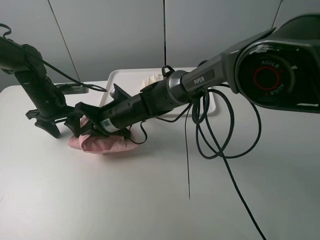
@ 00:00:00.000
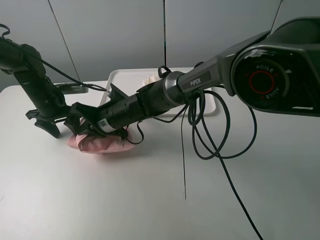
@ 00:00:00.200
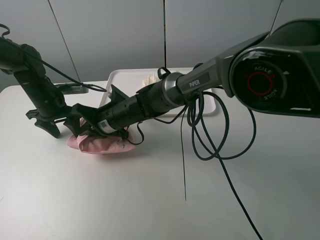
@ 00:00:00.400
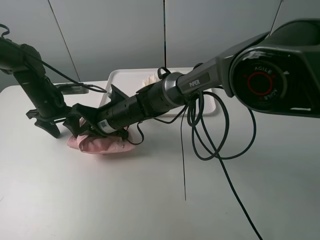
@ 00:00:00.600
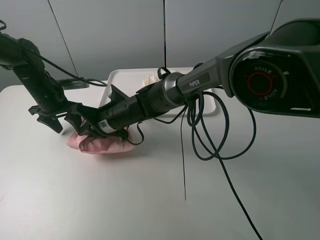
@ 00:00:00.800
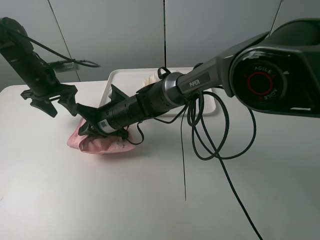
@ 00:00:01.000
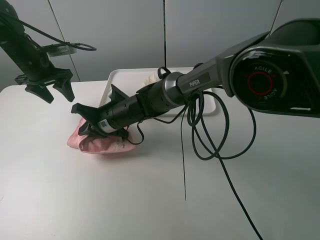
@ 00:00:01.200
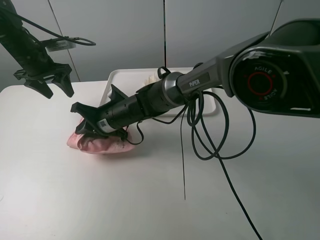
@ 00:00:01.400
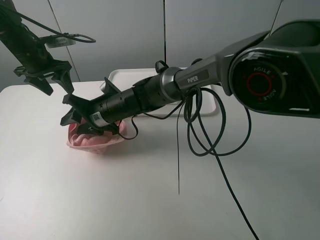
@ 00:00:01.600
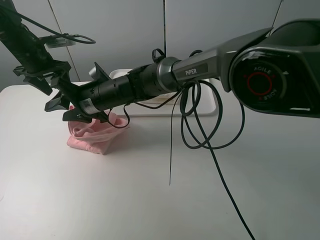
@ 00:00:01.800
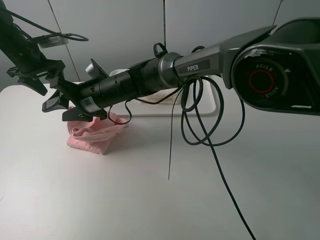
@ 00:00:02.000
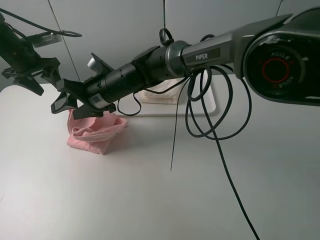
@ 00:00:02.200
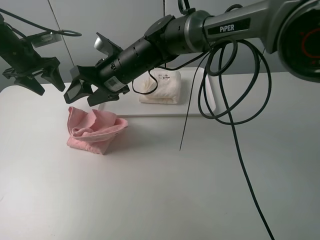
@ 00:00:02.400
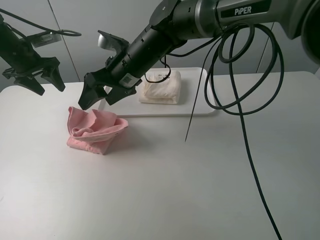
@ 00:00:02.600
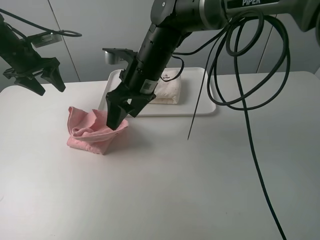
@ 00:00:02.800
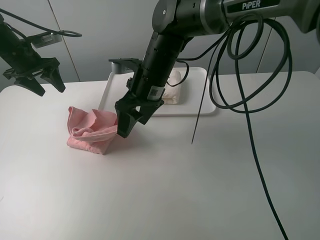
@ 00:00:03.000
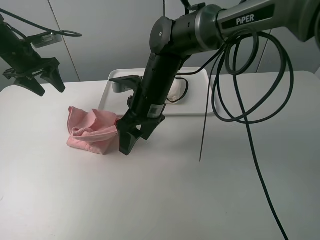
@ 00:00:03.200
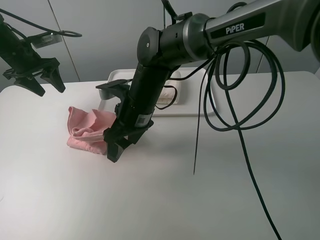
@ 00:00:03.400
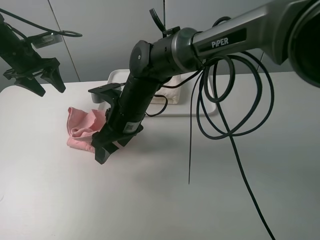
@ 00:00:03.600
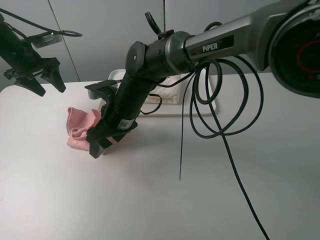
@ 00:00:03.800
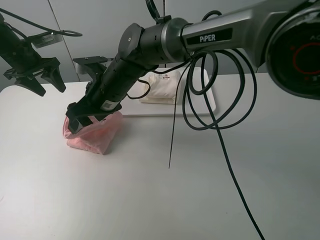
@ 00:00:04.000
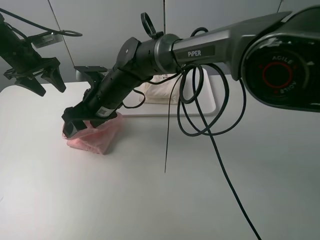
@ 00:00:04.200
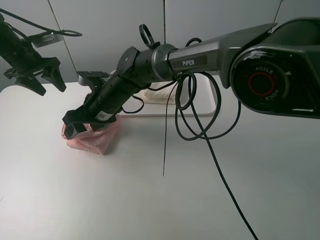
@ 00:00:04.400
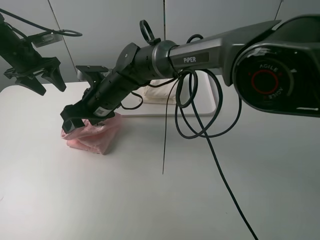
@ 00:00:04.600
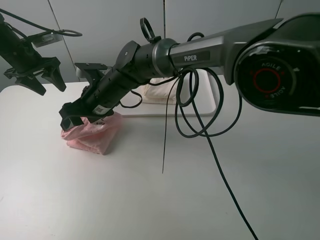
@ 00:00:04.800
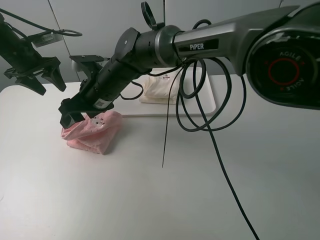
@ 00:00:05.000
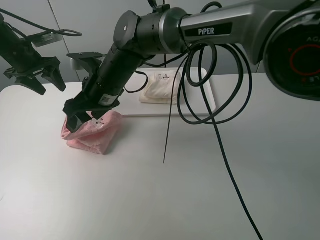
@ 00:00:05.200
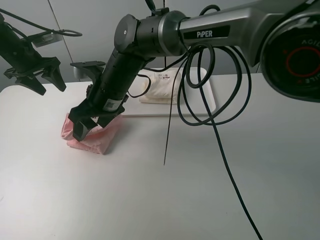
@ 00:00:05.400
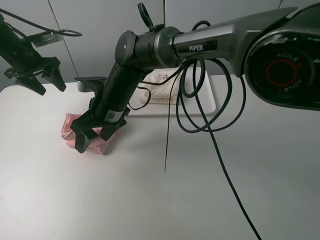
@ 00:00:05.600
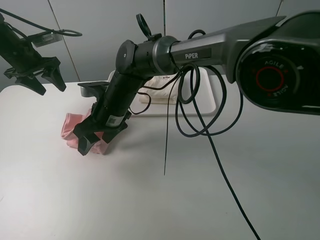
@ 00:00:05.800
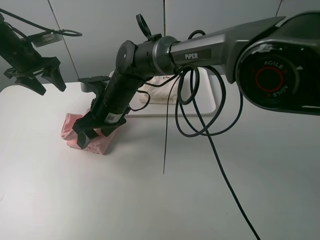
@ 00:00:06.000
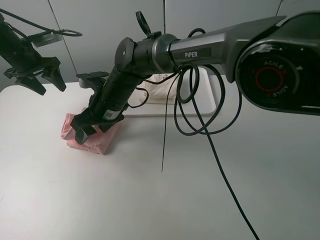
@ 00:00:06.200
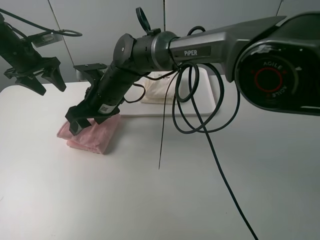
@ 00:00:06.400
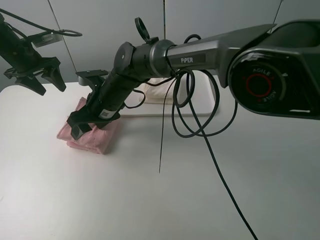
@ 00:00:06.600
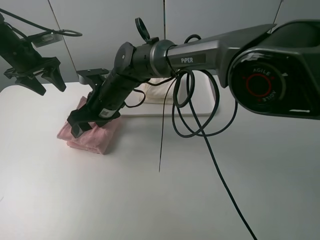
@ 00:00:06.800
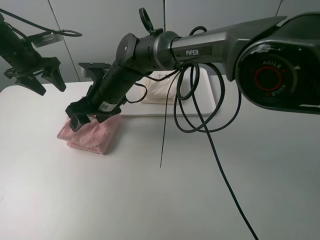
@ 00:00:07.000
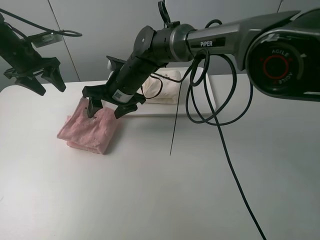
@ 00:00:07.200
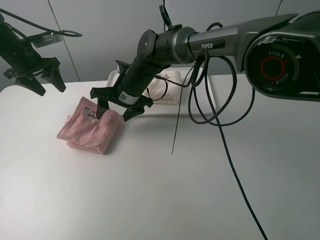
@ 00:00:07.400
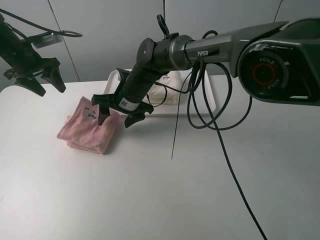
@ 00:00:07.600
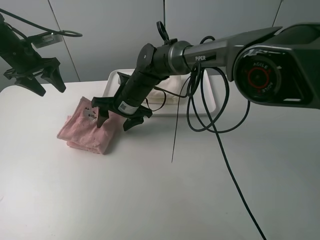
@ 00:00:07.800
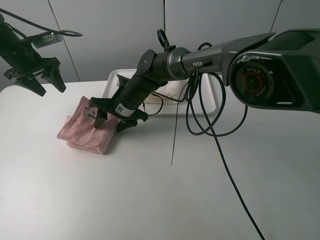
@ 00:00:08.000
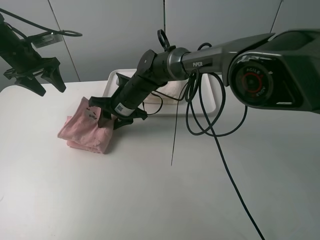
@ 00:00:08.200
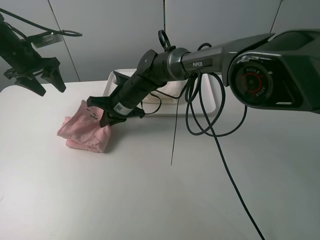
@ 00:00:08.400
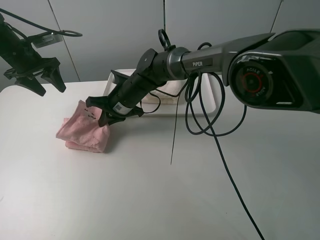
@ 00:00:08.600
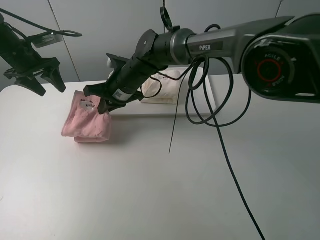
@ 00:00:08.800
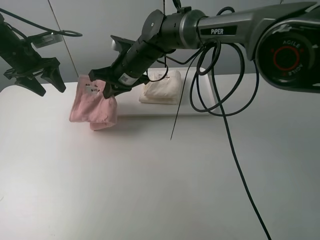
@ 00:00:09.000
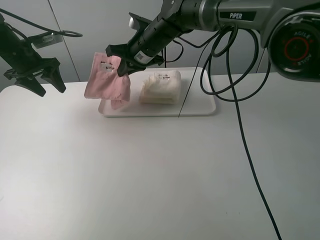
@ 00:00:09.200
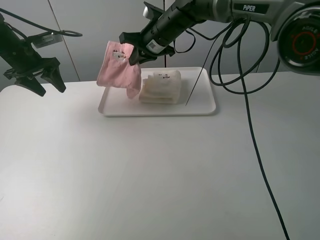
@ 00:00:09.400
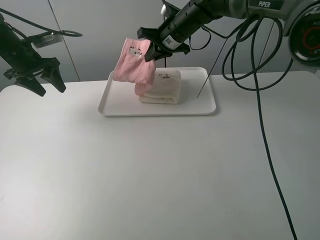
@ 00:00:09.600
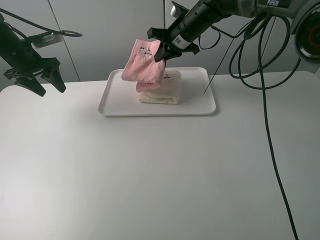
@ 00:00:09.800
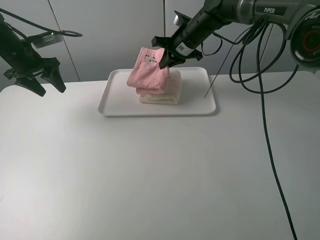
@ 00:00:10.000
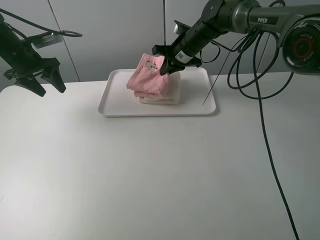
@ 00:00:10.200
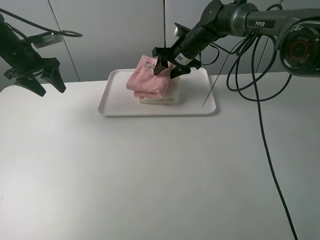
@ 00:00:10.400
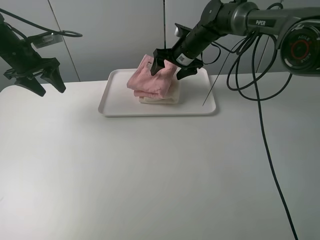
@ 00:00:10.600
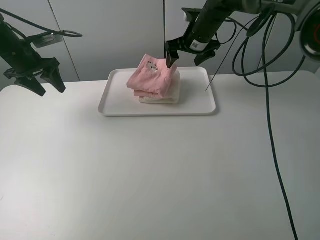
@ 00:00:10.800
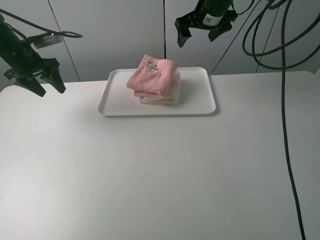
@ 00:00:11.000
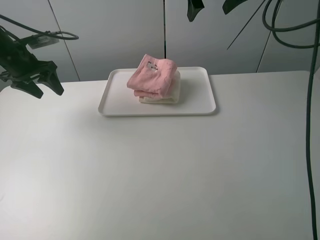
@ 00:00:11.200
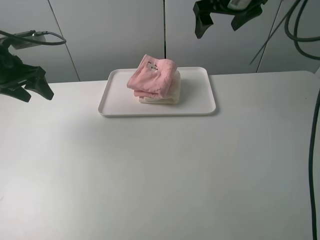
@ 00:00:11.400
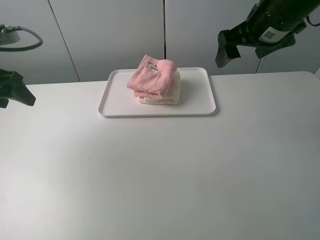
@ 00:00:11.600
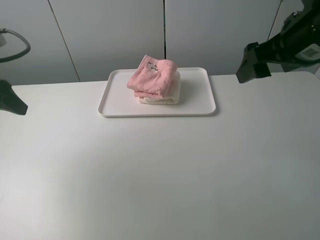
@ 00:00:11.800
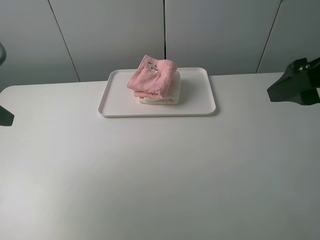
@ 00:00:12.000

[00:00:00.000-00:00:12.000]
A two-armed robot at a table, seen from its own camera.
Task of the whole recording: fold one of the towels by two grippers and place it on the tray,then fold another towel by two grippers and place it on the folded towel.
Step, 00:00:00.000 to 00:00:04.800: Fold the pink towel from right to left with right gripper.
Step, 00:00:05.000 to 00:00:08.200: Grasp the pink towel with the right gripper.
Step, 00:00:08.400 to 00:00:10.600: Place the pink towel on the white towel with the right gripper.
00:00:00.000 to 00:00:01.600: The right gripper opens. Meanwhile the left gripper travels upward by approximately 10 cm.
00:00:01.600 to 00:00:03.000: The right gripper travels to the right and upward by roughly 15 cm.
00:00:03.000 to 00:00:04.400: The right gripper shifts about 10 cm to the left and downward.
00:00:04.400 to 00:00:06.000: The grippers move only a little.
00:00:06.000 to 00:00:07.600: The right gripper is displaced forward by about 5 cm.
00:00:07.600 to 00:00:09.000: The right gripper shifts approximately 5 cm upward, and closes its fingers.
00:00:09.000 to 00:00:10.400: The right gripper goes approximately 15 cm to the right and forward, and opens up.
00:00:10.400 to 00:00:12.000: The left gripper goes approximately 25 cm backward. The right gripper goes approximately 40 cm backward, upward and to the right.

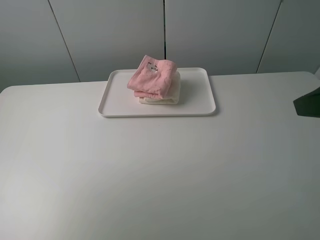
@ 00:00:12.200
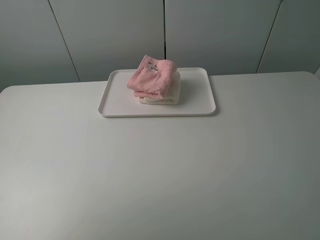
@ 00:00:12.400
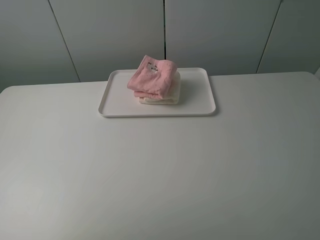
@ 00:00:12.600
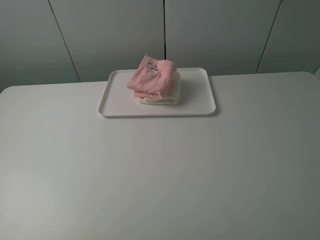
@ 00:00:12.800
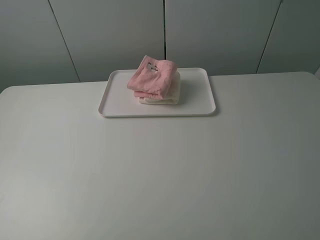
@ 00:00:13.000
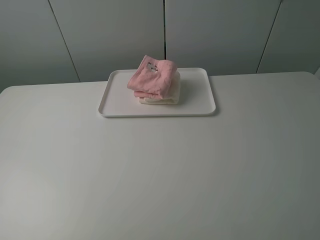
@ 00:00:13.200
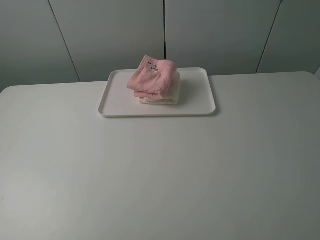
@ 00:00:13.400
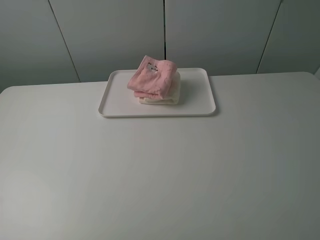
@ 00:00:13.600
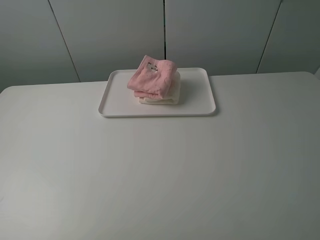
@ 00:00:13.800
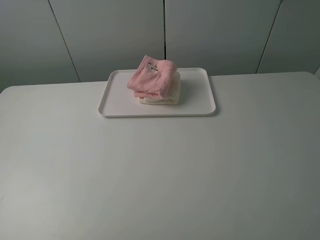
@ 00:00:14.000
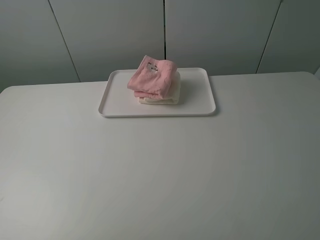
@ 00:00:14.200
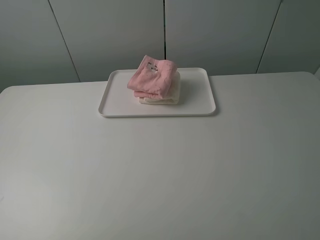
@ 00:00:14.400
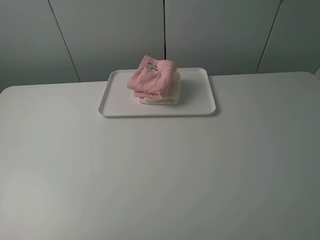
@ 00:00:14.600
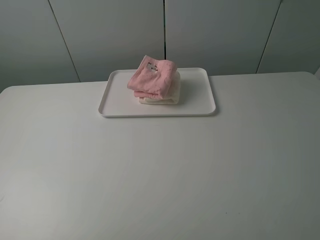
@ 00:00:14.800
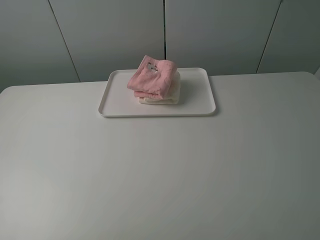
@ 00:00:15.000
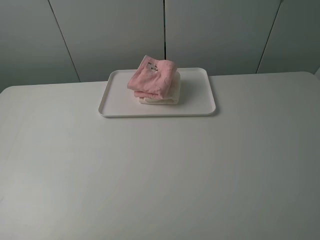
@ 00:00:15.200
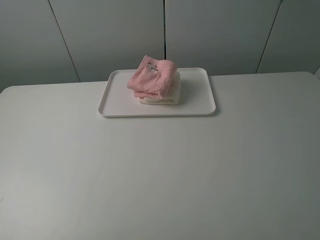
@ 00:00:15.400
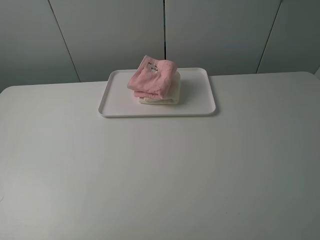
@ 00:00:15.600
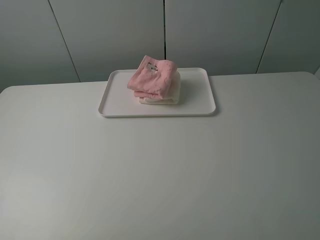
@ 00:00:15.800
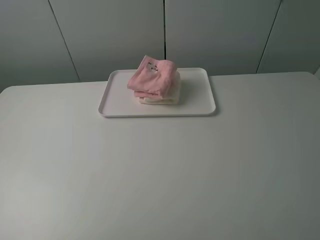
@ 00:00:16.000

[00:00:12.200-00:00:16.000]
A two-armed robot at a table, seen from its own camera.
Task of the whole recording: fold one of the towels by two grippers and place it on the tray,then fold another towel by two grippers and place it on the folded towel.
00:00:12.200 to 00:00:13.400: The grippers both shift backward by some 15 cm.
00:00:14.800 to 00:00:16.000: Both grippers stay about where they are.
